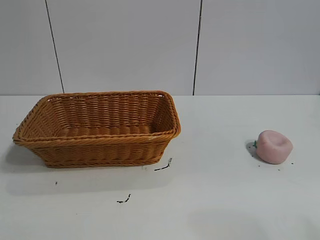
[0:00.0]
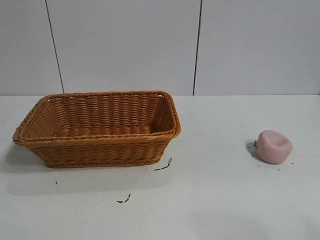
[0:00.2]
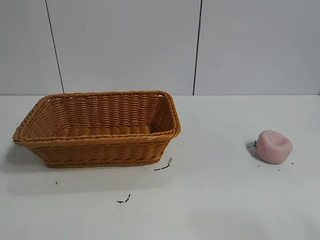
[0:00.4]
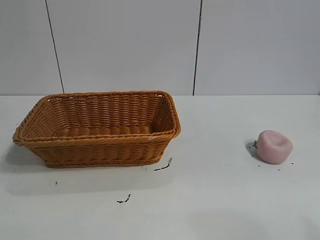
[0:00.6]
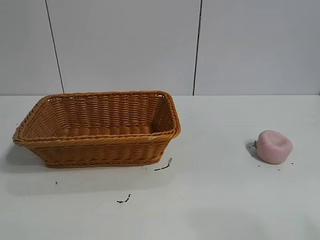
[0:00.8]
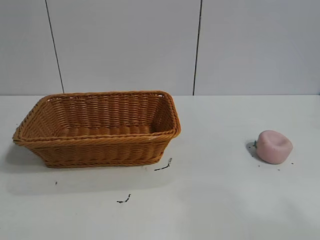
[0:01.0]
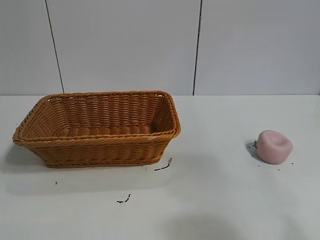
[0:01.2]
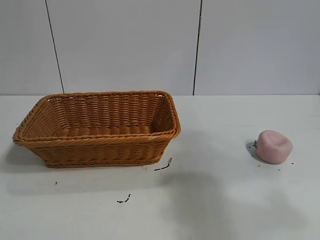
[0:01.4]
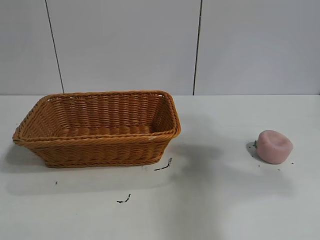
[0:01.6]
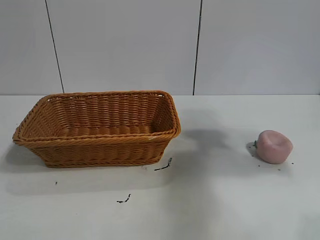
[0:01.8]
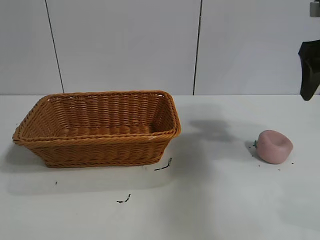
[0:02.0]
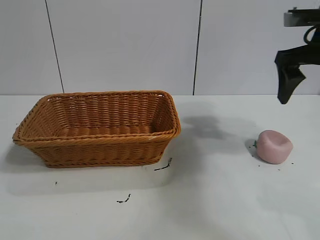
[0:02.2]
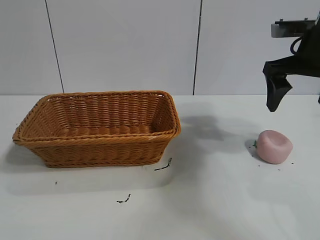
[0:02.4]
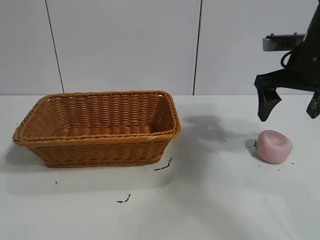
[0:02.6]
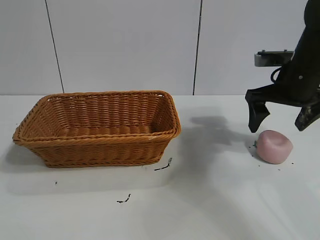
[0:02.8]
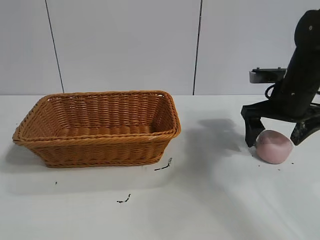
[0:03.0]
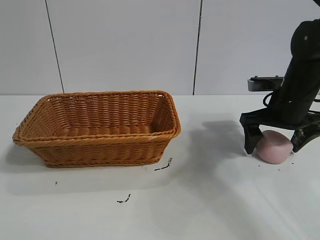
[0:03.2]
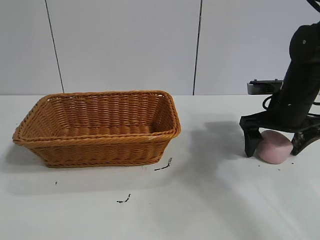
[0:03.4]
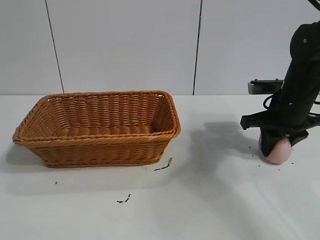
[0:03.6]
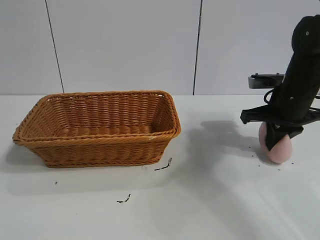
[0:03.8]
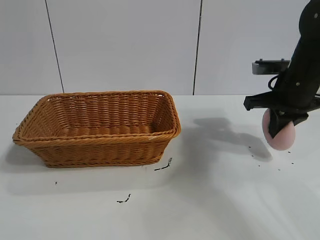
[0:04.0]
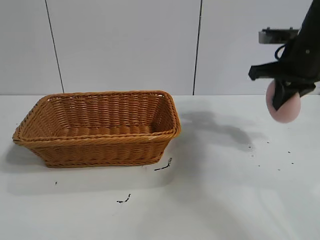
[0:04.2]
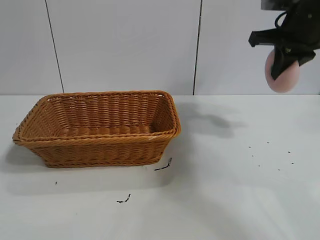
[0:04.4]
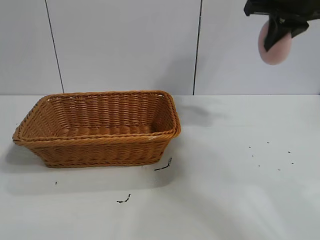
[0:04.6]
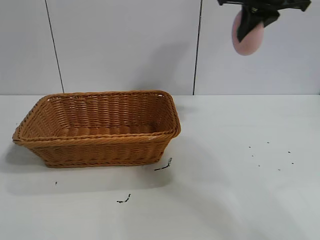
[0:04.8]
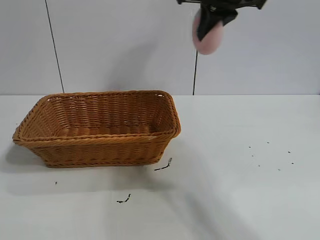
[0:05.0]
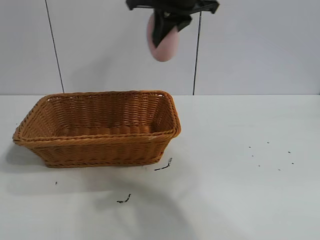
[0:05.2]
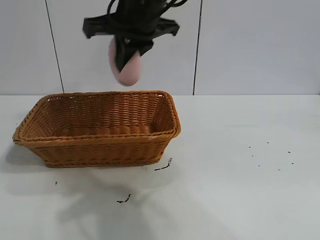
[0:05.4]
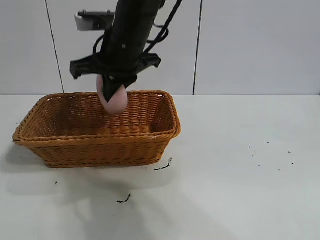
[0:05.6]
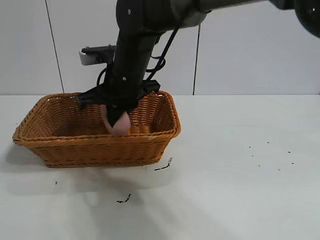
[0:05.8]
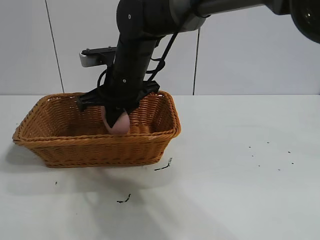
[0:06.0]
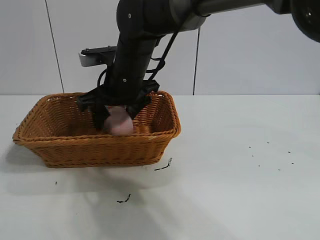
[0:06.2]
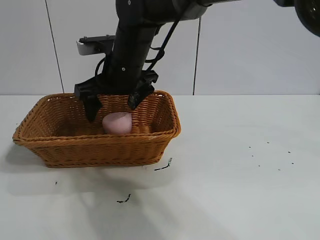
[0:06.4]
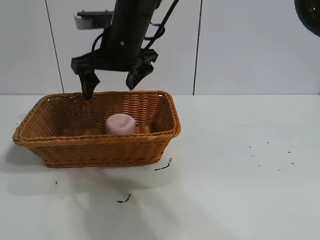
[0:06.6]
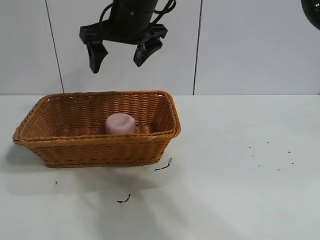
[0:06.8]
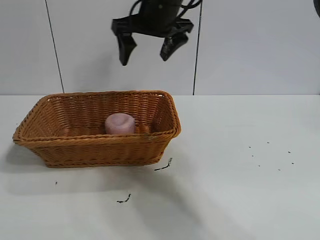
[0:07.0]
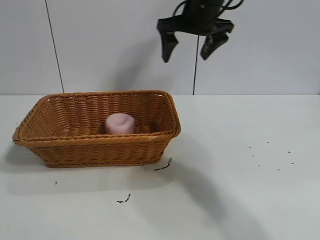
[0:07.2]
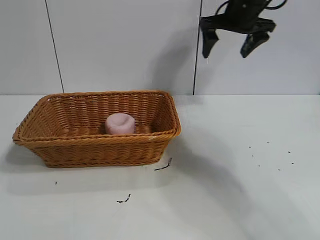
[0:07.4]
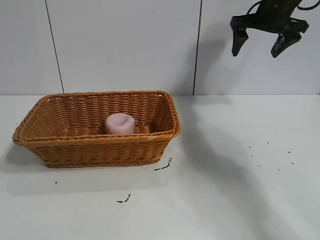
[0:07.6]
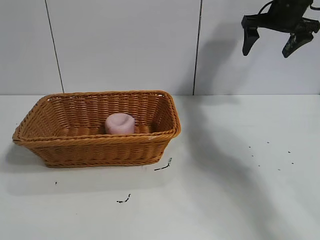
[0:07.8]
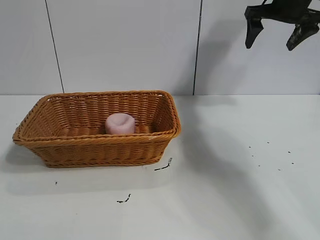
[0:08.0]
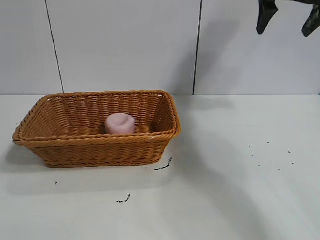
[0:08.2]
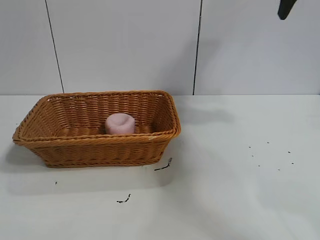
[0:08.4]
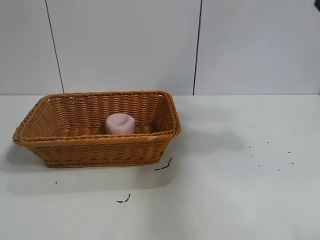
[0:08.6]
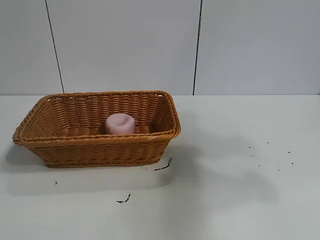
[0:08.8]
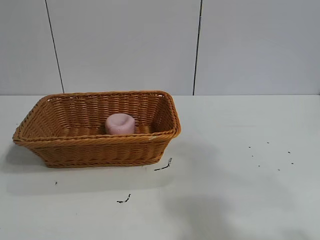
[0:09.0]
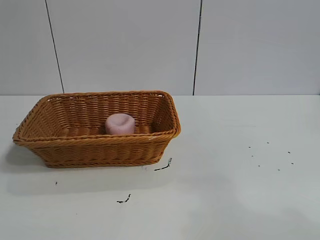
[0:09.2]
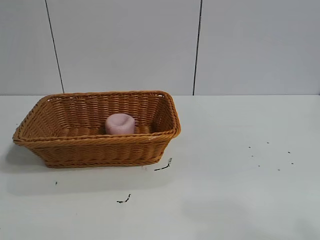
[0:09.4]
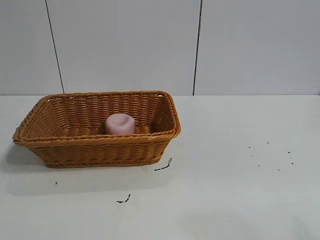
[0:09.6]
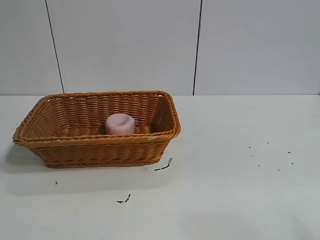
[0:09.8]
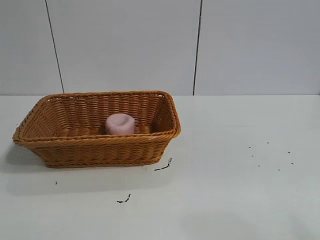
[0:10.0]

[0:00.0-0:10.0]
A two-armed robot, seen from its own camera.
Task of the whole recording: pick up the peach and put it into the basket.
Step, 0:01.0 to 0:03.8: Grasp the peach with right gripper.
Step, 0:04.0 to 0:06.6: Place the peach in the basket with right gripper.

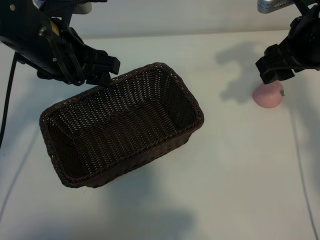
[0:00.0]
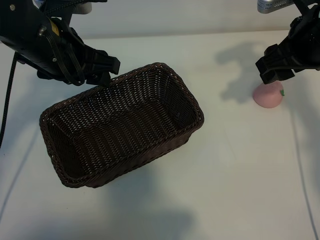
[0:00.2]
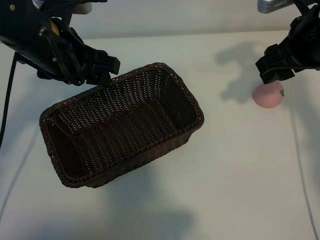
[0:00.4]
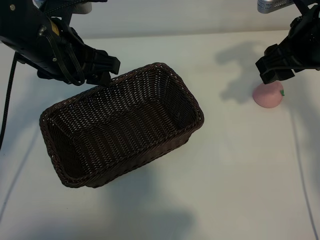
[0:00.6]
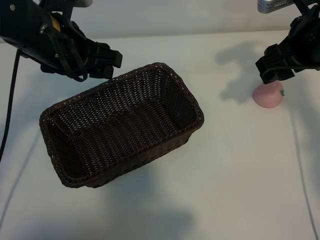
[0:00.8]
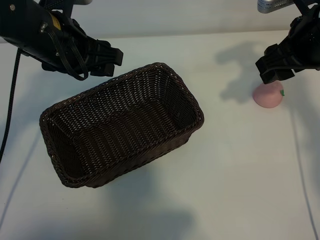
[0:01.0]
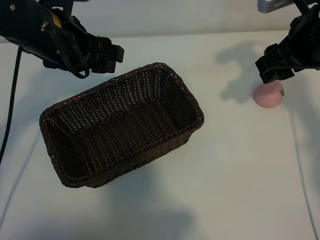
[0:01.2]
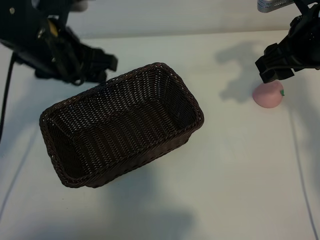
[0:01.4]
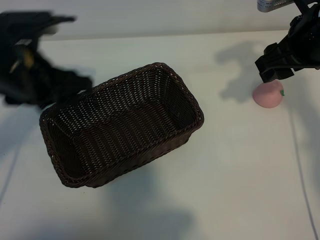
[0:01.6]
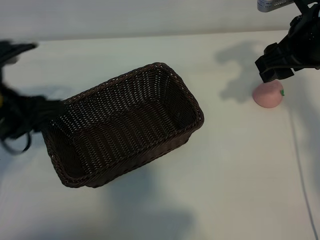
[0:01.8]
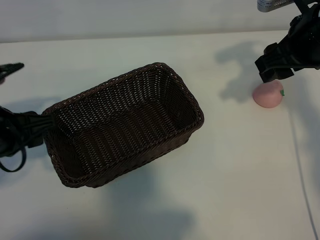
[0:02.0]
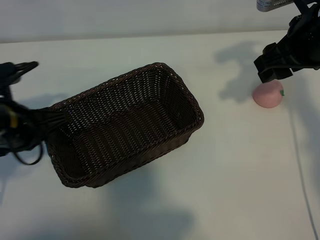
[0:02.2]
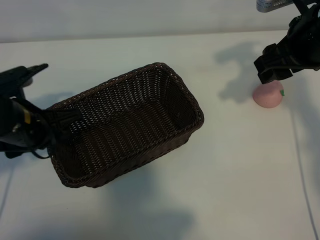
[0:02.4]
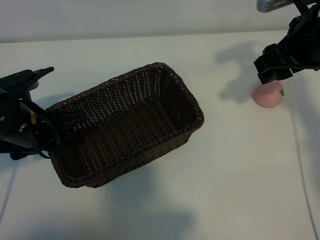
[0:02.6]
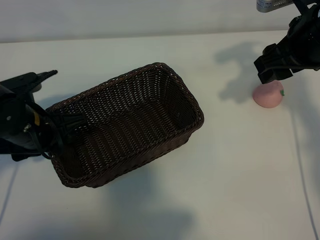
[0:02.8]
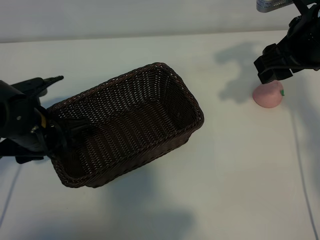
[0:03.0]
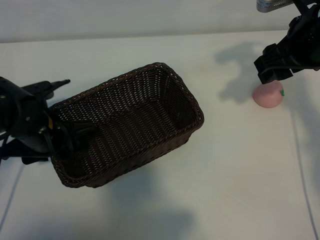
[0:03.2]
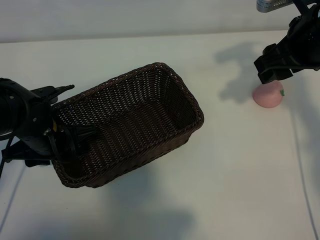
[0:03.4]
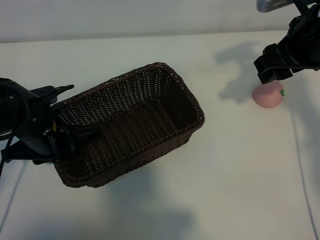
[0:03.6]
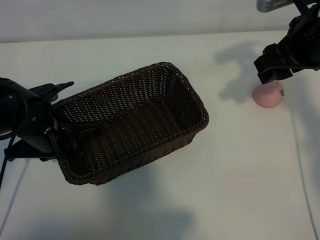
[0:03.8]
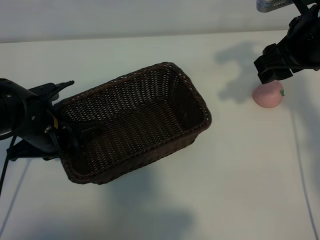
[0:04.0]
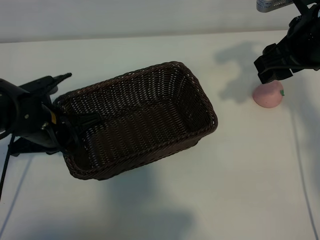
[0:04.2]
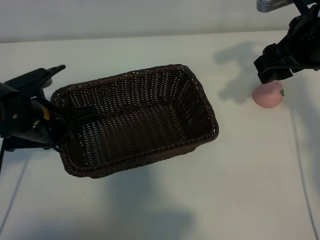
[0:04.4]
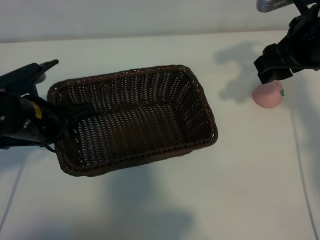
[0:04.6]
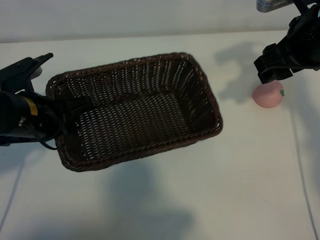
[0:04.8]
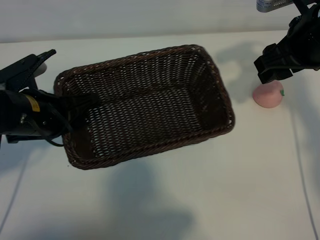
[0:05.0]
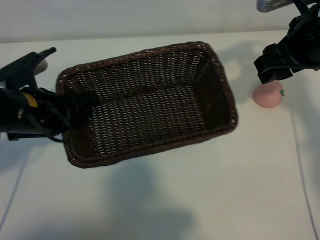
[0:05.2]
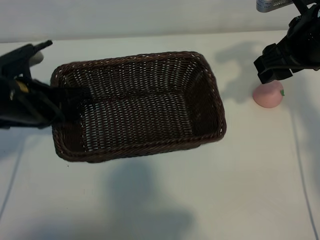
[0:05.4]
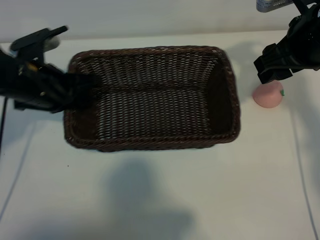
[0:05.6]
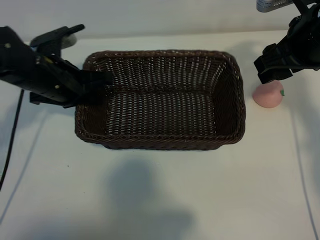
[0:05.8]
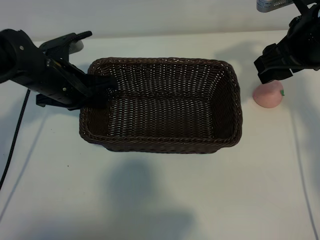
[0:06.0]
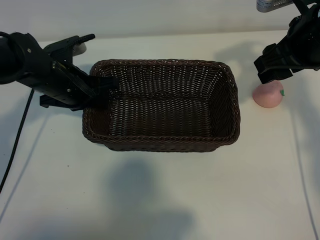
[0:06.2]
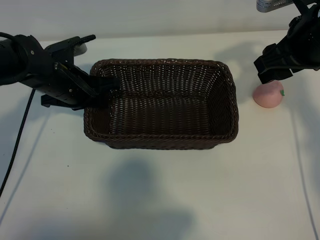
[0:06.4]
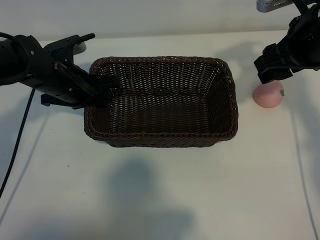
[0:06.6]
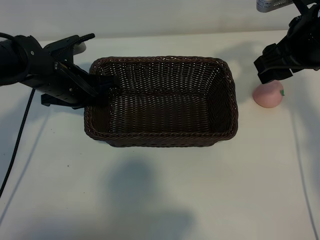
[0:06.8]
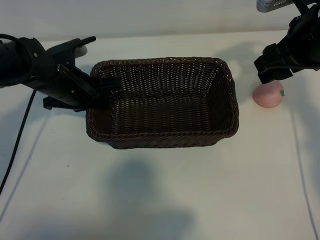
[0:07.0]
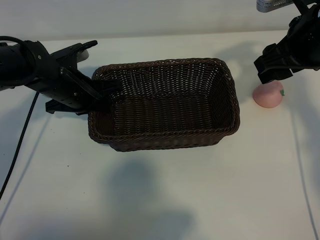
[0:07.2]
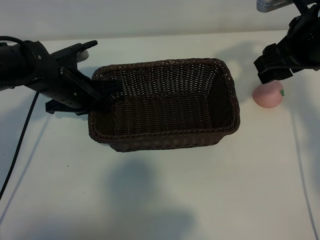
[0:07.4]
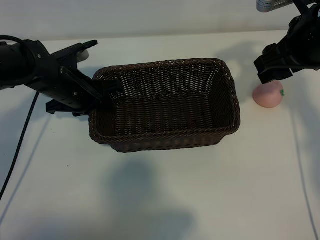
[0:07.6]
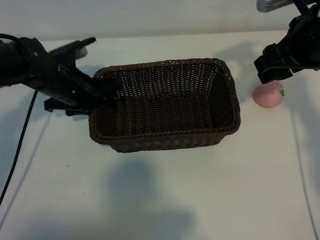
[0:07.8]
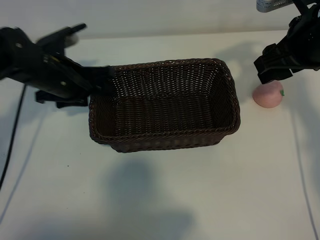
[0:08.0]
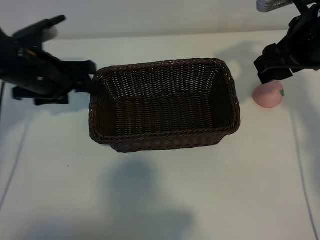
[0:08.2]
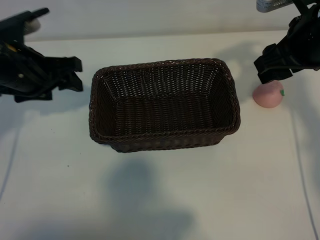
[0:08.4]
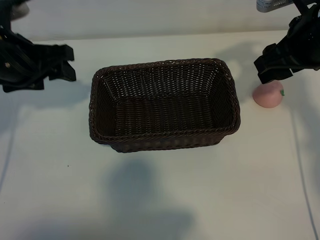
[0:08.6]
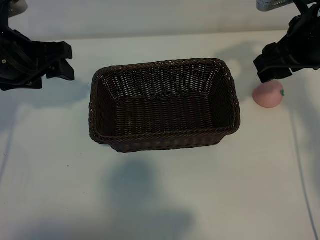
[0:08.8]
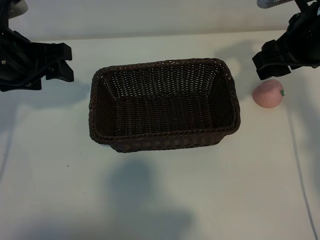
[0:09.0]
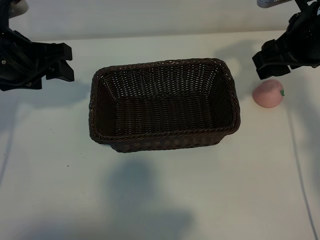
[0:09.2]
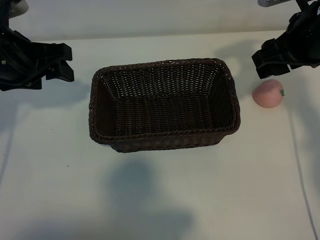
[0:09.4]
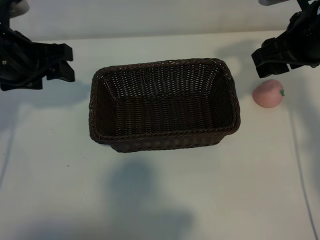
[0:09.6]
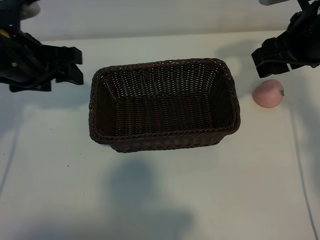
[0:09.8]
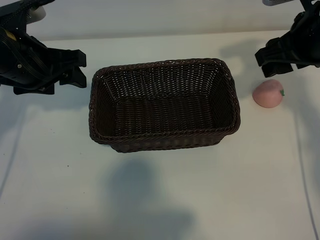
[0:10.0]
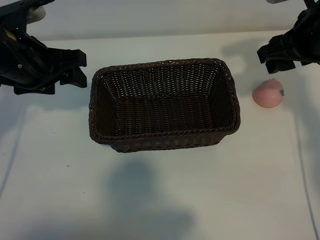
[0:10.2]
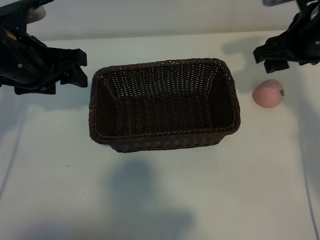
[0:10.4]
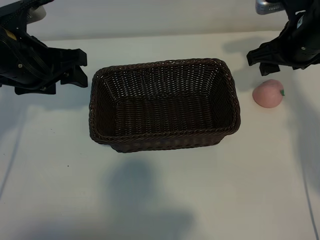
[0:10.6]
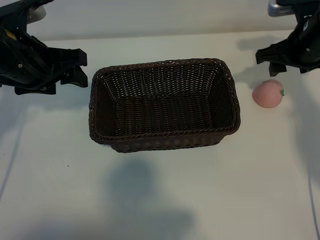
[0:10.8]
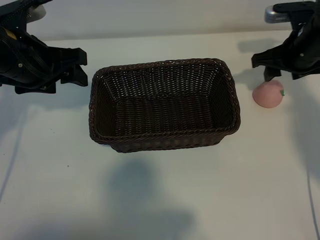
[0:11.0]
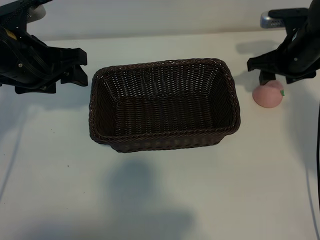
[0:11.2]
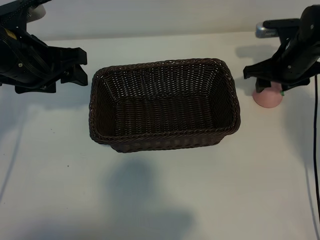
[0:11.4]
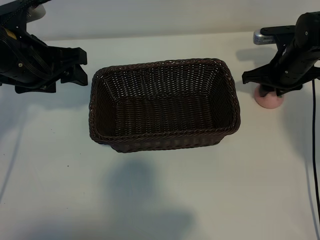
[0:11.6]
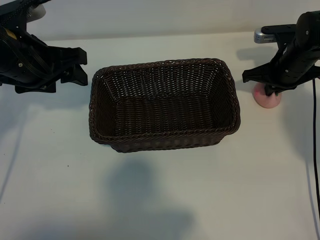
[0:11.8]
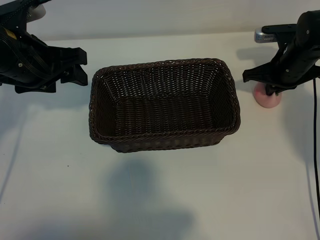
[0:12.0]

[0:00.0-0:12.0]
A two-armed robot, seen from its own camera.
Task of the whole recording: pick up the peach and put it into the basket.
Step, 0:00.6 to 0:04.0: Grasp the basket with left gripper.
Step, 0:04.2 to 0:08.0: Place the basket in the center of view with left gripper.
Step, 0:08.2 to 0:11.8: Grasp the peach with right gripper.

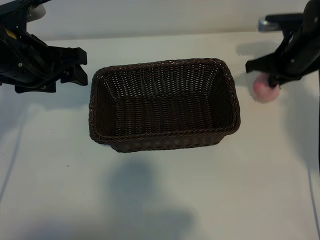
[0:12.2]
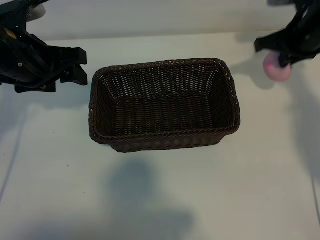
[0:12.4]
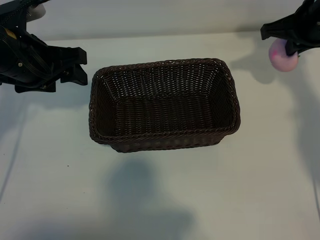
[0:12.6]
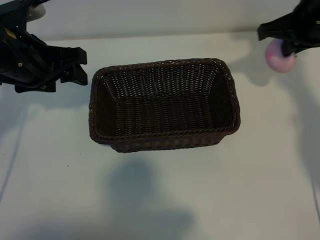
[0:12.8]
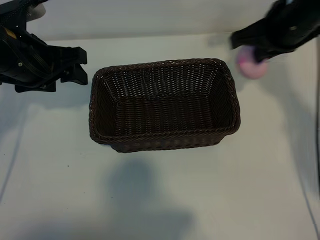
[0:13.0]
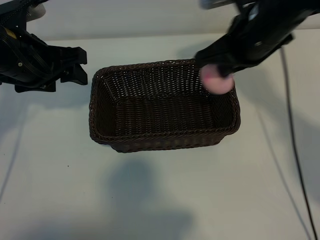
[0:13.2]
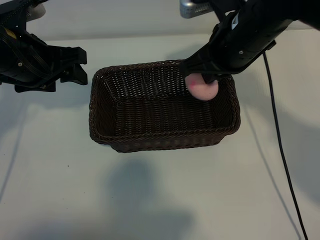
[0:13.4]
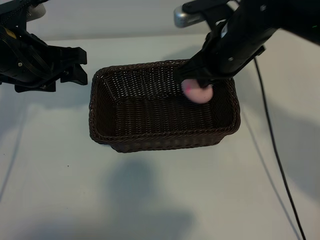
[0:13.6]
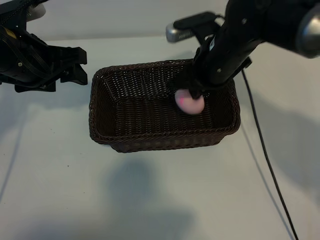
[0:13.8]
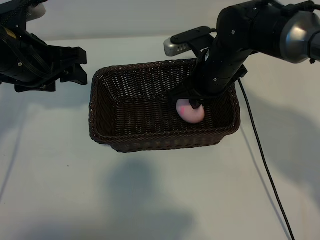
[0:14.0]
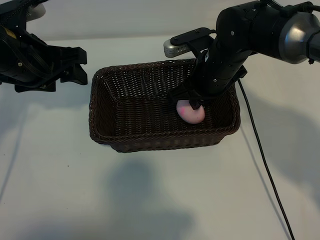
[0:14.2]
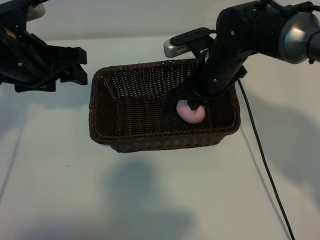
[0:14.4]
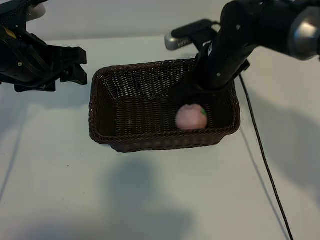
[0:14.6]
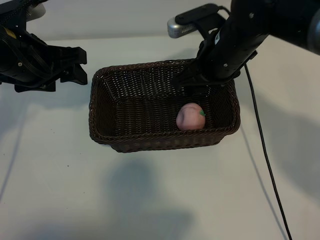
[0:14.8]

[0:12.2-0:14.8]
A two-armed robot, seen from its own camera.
Task of the whole recording: pick up the peach and put it into the basket.
Step, 0:12.2 to 0:14.6: Place the peach in the basket with right gripper.
